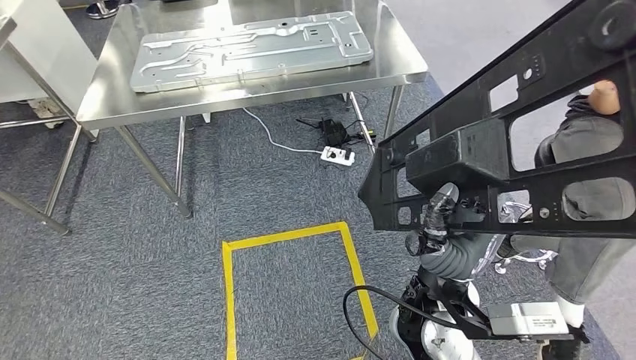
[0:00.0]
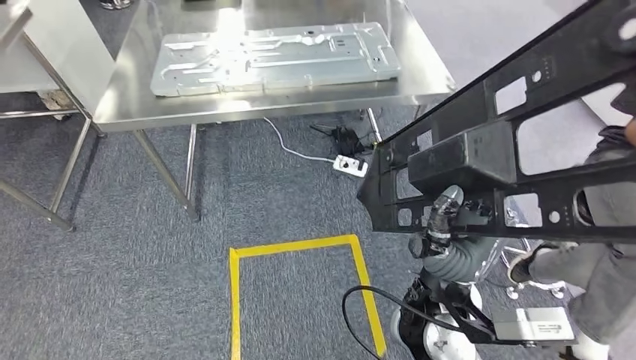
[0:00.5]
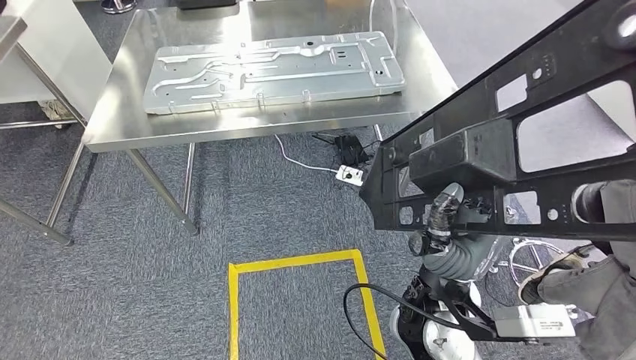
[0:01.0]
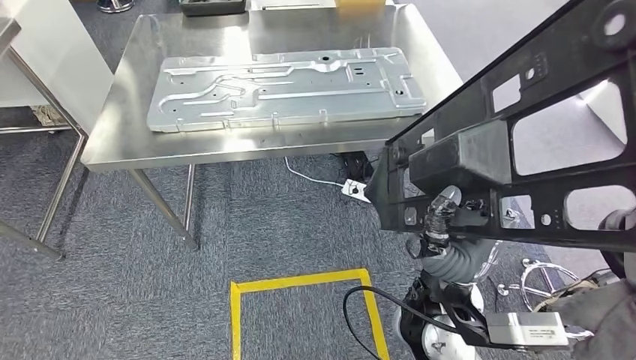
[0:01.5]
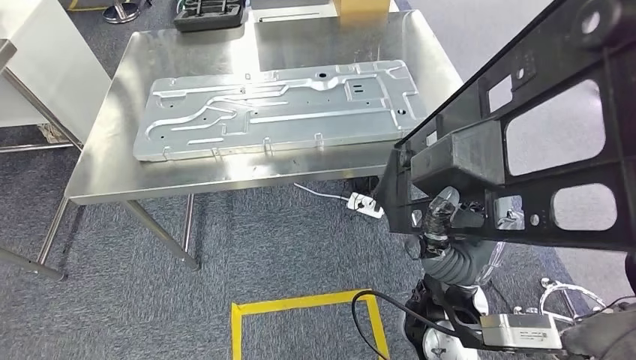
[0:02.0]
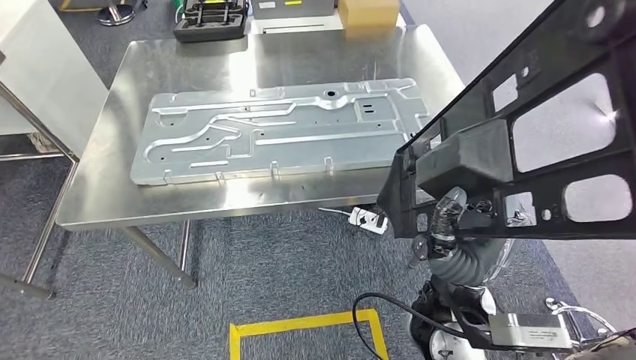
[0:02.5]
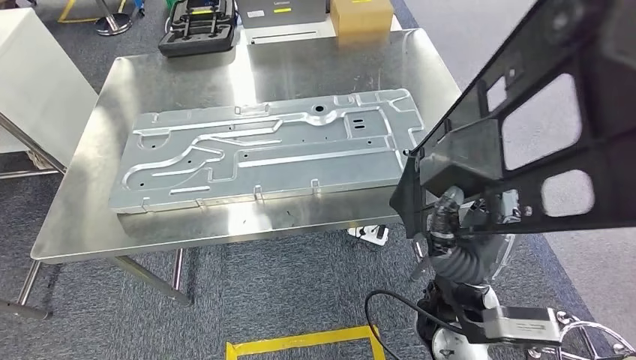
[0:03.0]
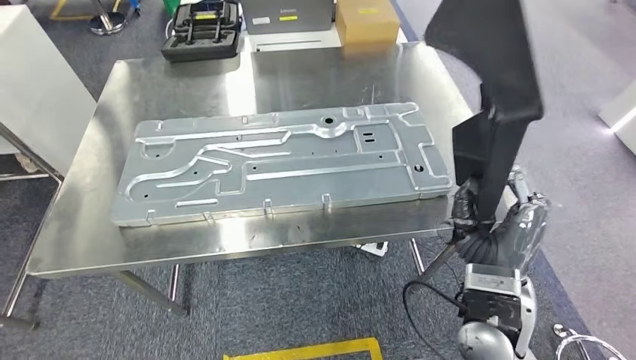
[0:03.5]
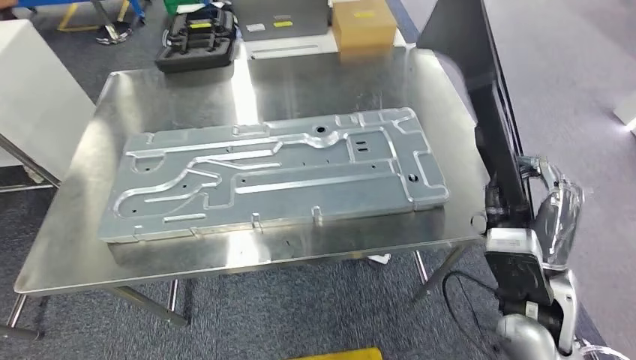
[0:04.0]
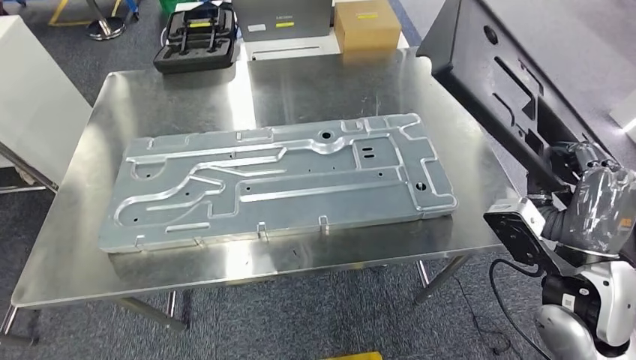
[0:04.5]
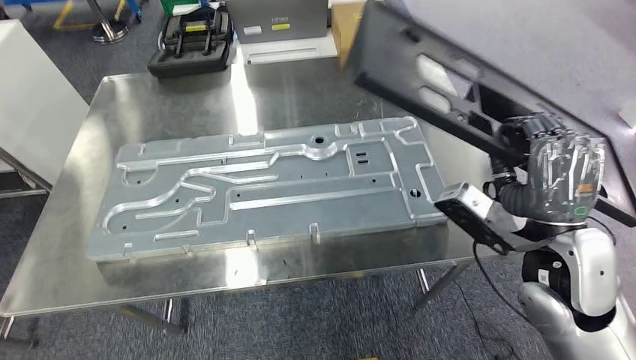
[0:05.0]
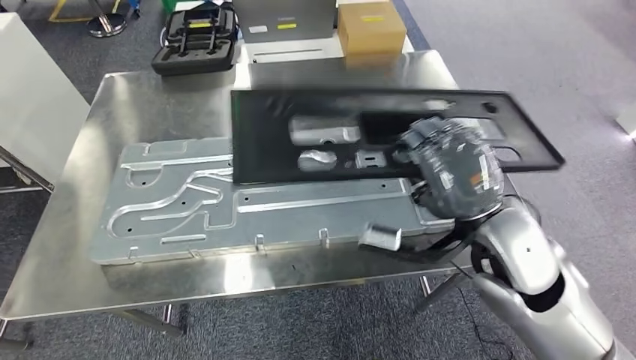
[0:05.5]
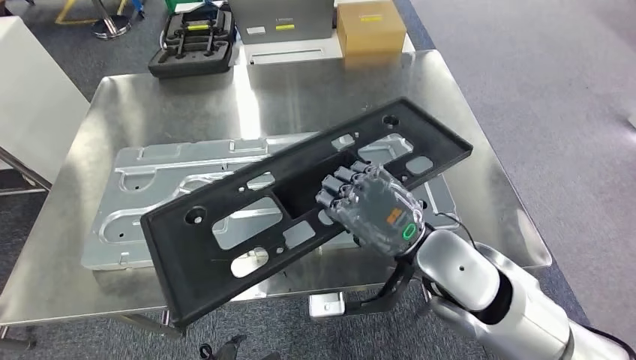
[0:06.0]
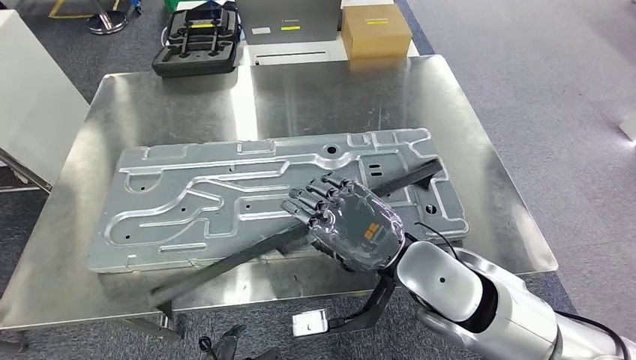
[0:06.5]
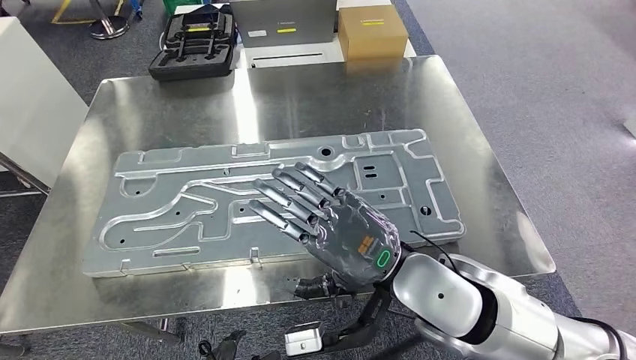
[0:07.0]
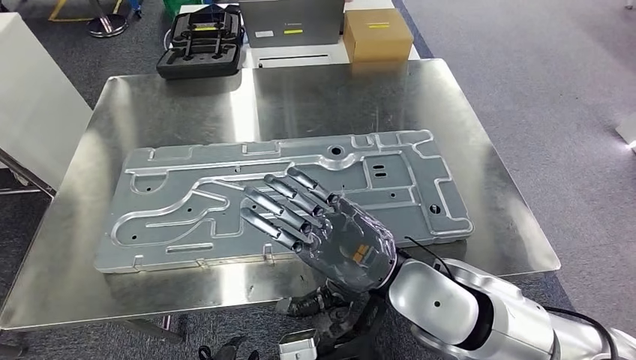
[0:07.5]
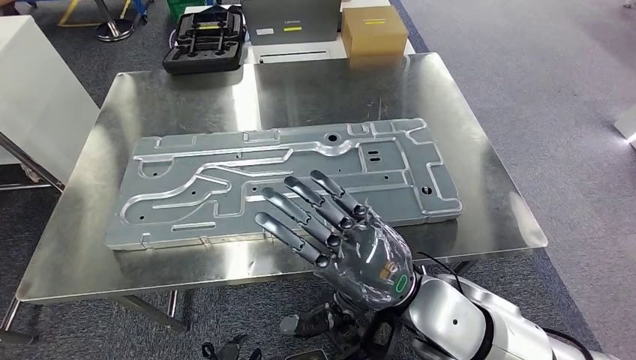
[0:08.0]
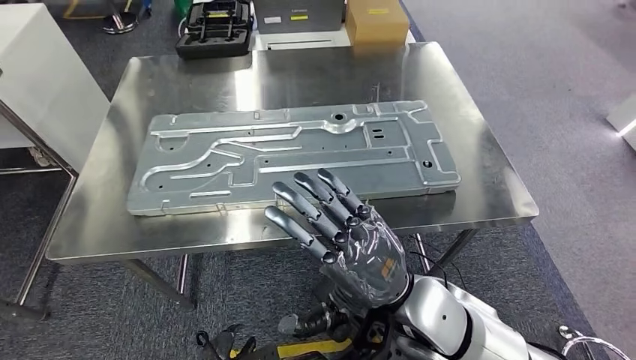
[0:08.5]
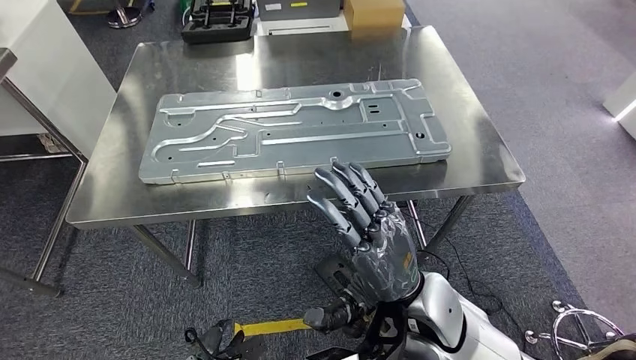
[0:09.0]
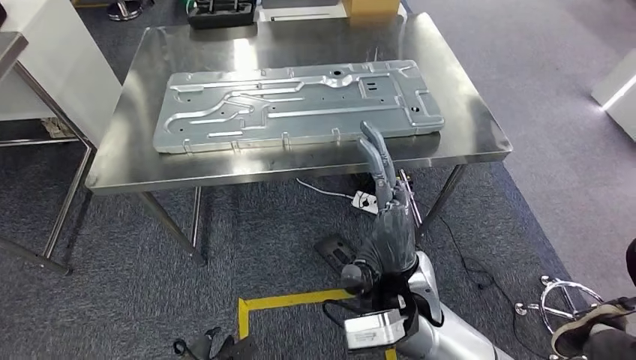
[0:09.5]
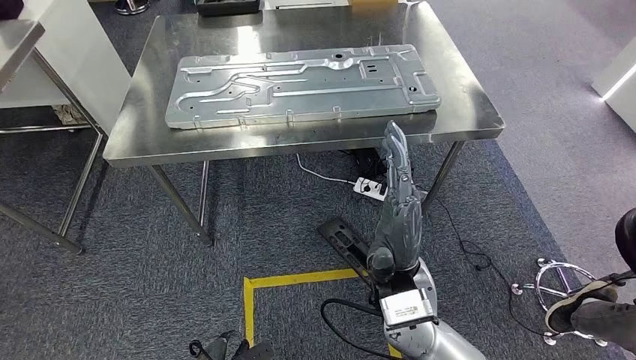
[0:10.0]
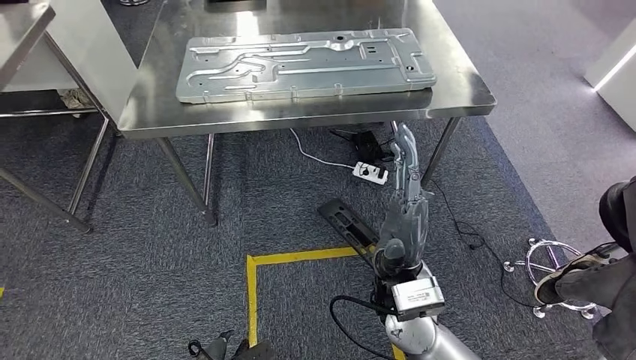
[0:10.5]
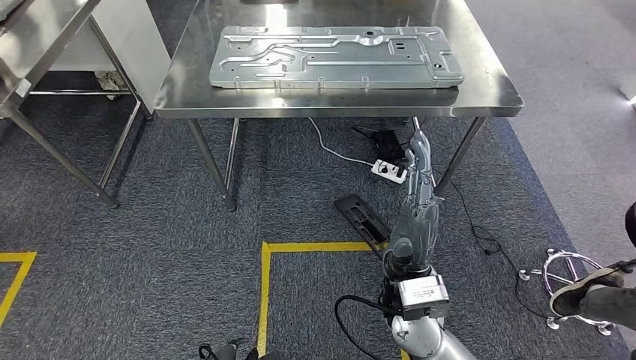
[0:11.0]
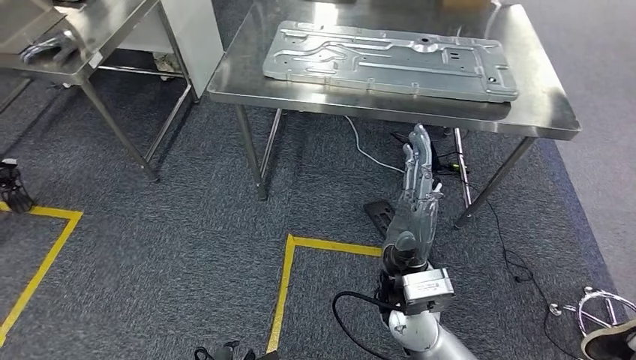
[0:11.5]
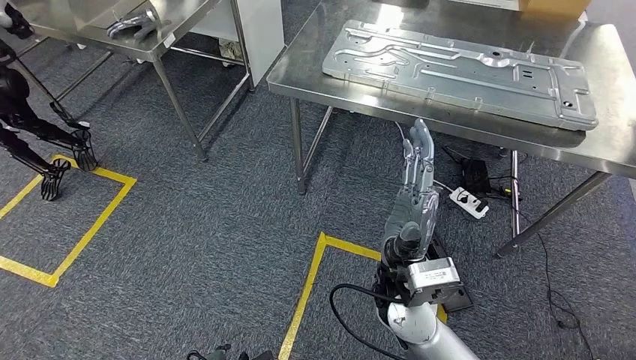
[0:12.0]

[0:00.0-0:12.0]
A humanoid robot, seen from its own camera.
Step, 0:00.0 to 0:02.5: Move the large material to the workbench.
Step, 0:03.0 to 0:10.0: Insert the large material into the corresponding slot on the workbench.

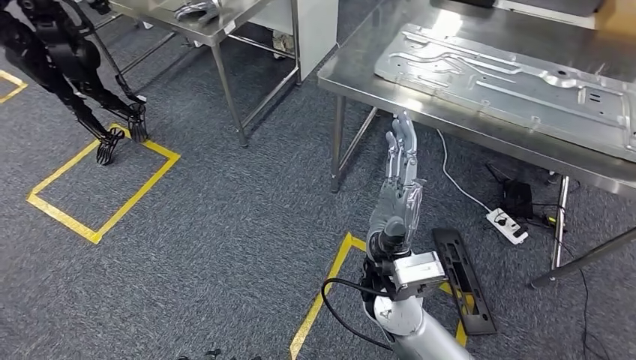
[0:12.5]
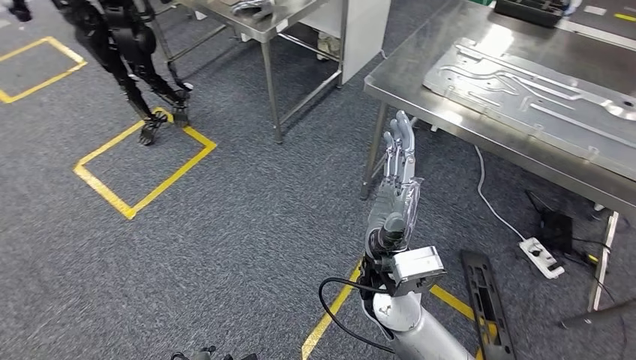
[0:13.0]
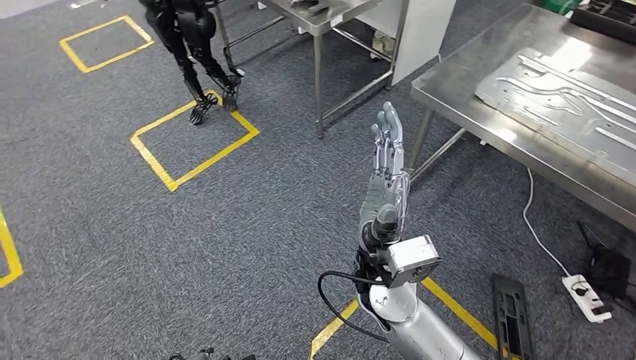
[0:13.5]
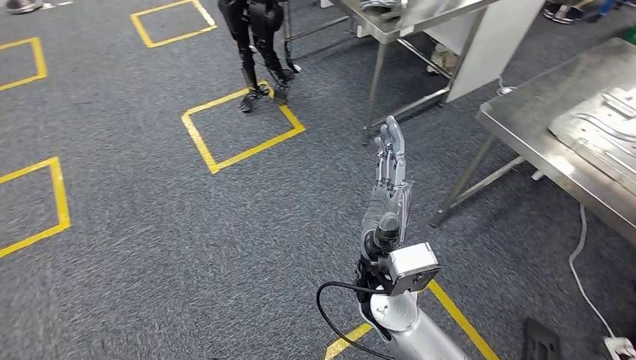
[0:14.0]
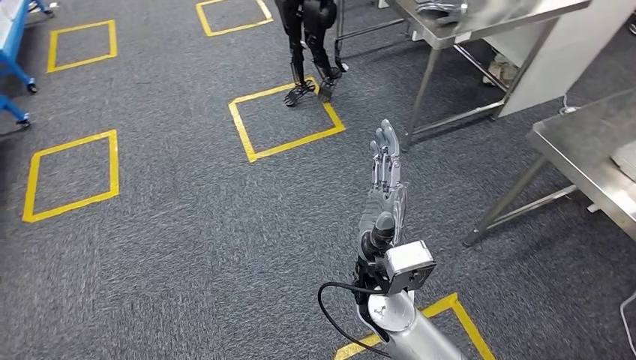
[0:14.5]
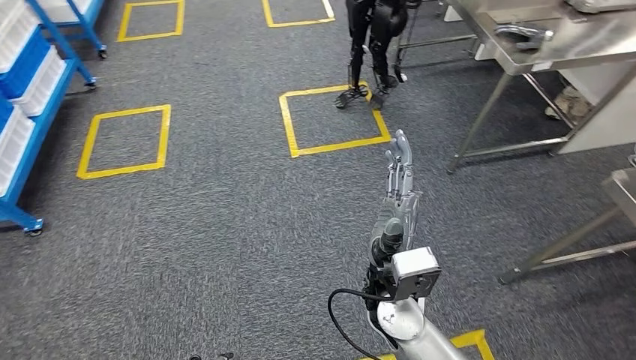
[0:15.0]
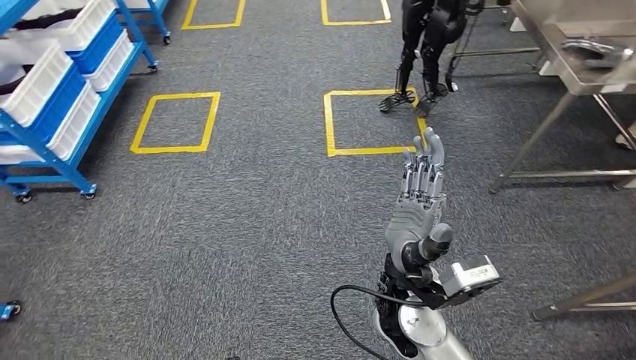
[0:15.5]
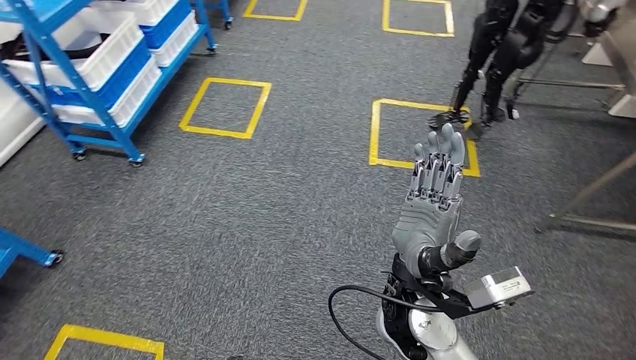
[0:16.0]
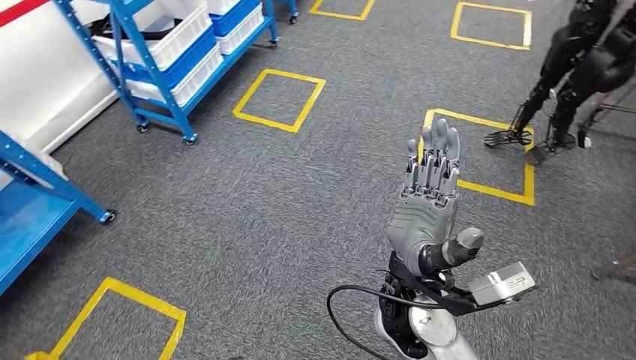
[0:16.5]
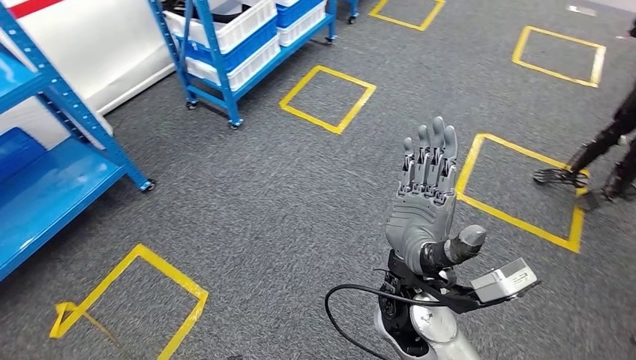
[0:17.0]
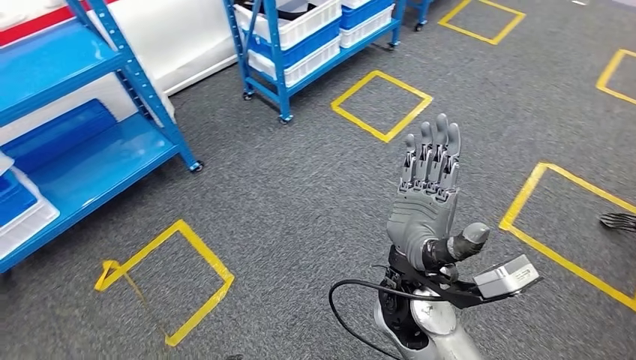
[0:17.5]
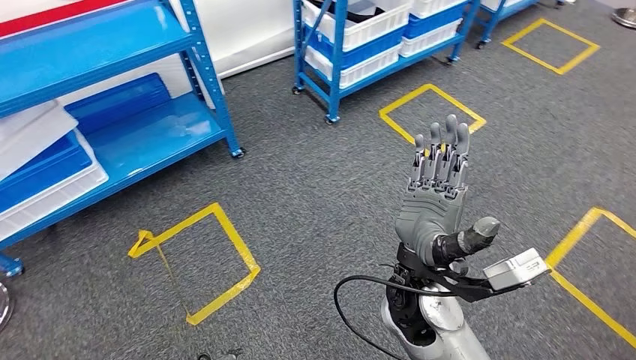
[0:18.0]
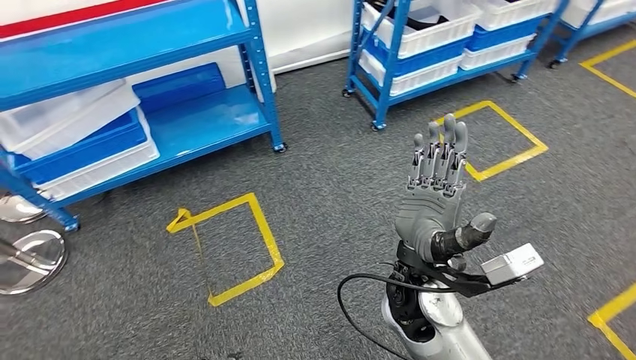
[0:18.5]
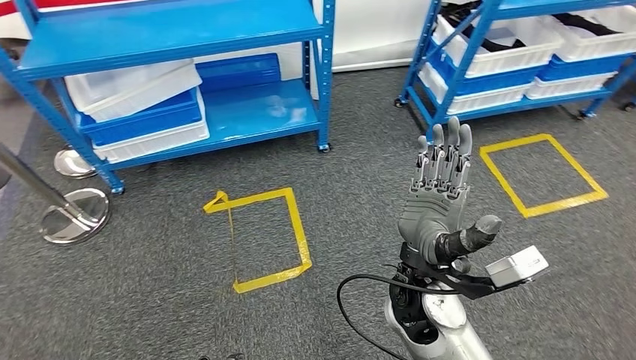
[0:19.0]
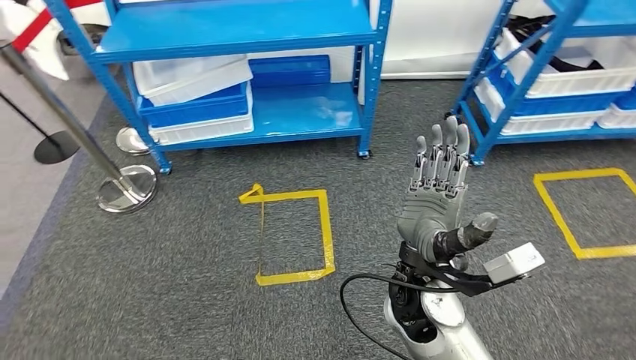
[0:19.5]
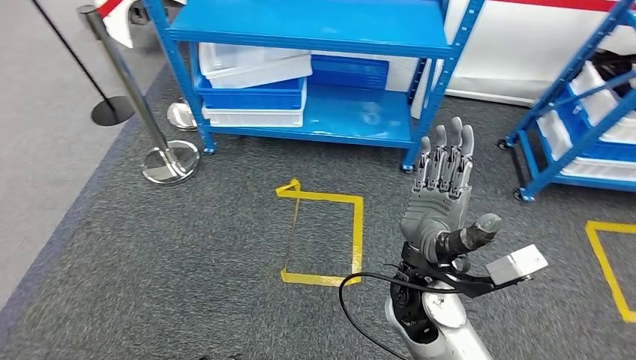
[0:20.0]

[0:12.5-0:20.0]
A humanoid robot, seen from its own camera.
Step, 0:12.5 to 0:20.0: Return to the initial position at the shelf.
